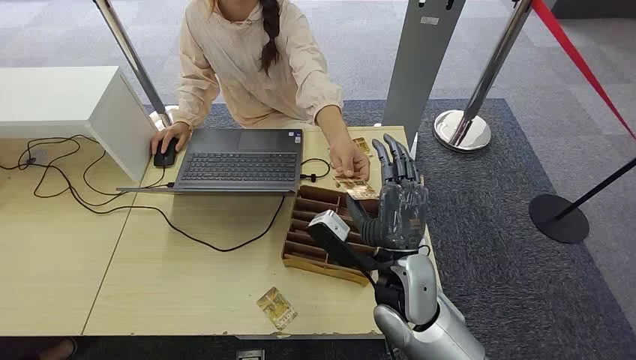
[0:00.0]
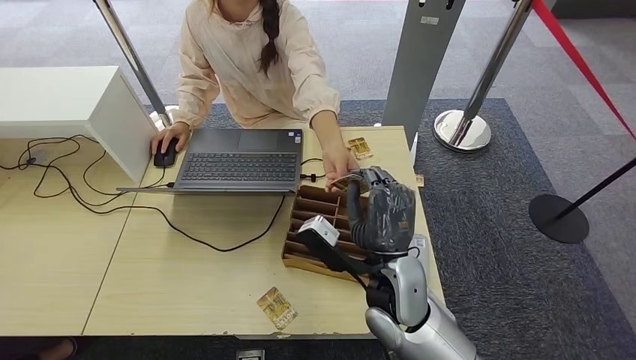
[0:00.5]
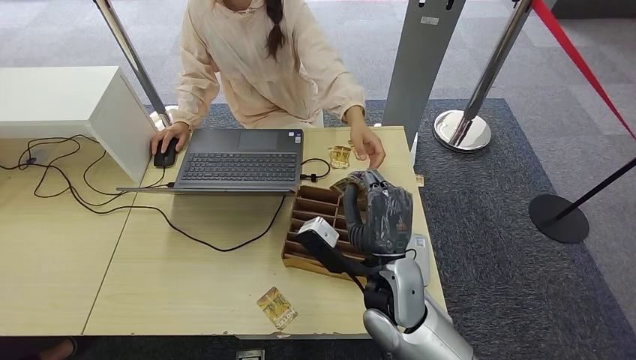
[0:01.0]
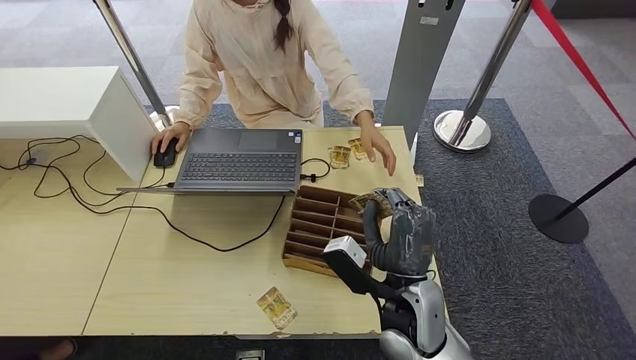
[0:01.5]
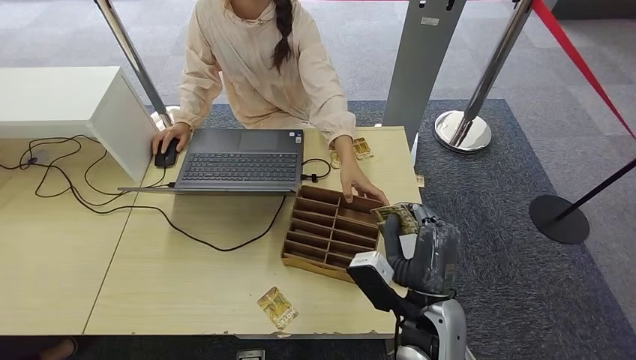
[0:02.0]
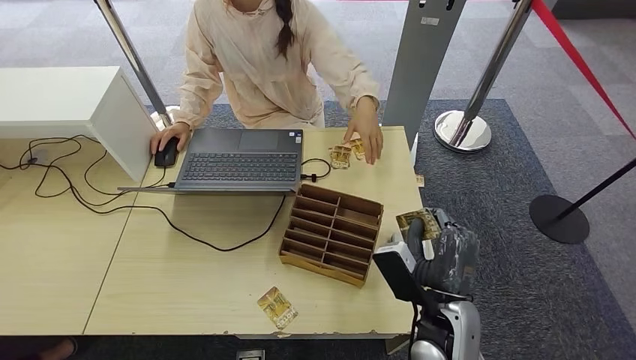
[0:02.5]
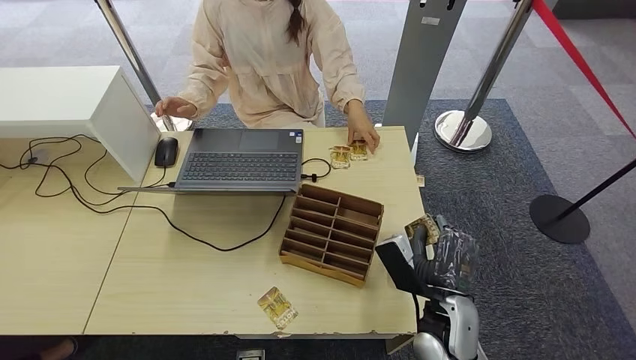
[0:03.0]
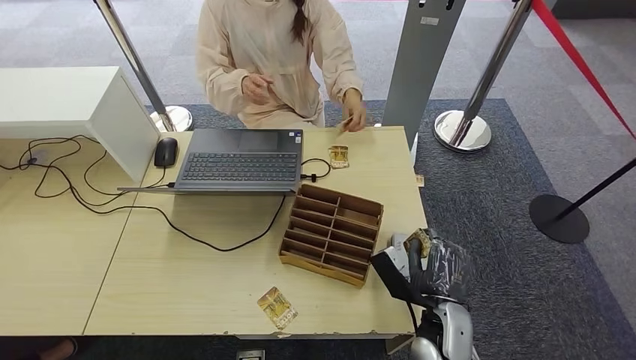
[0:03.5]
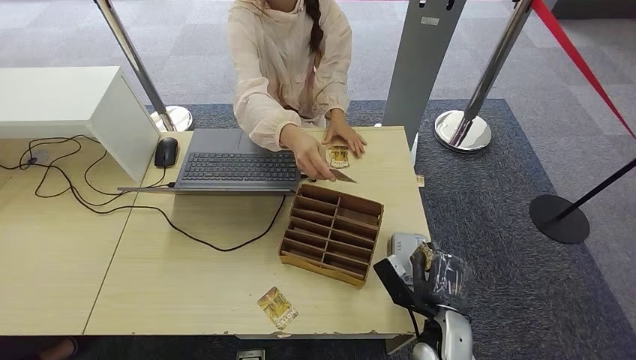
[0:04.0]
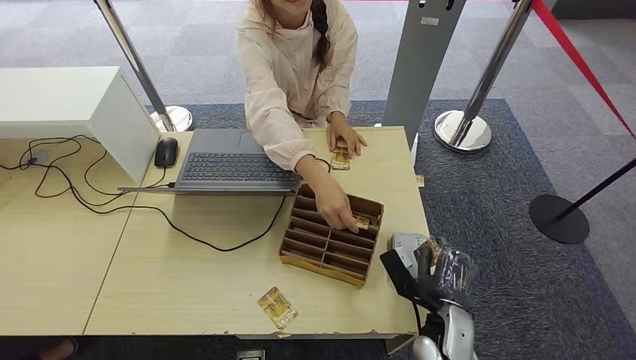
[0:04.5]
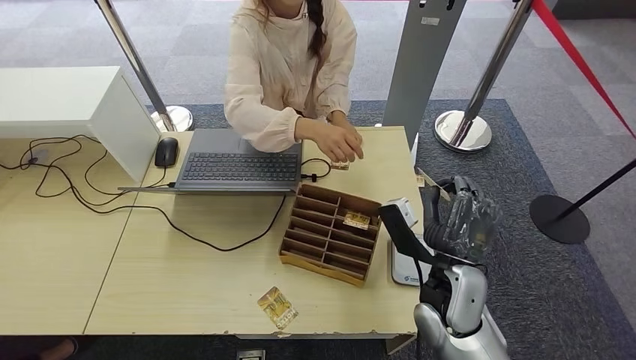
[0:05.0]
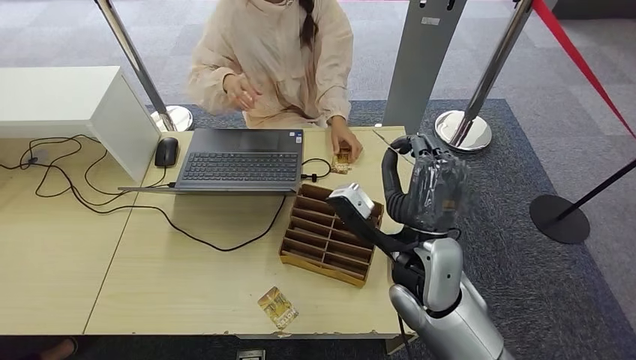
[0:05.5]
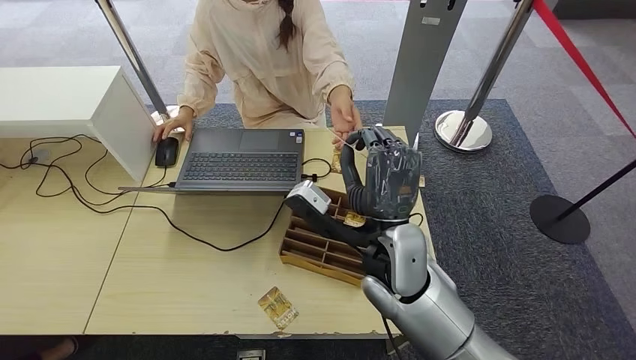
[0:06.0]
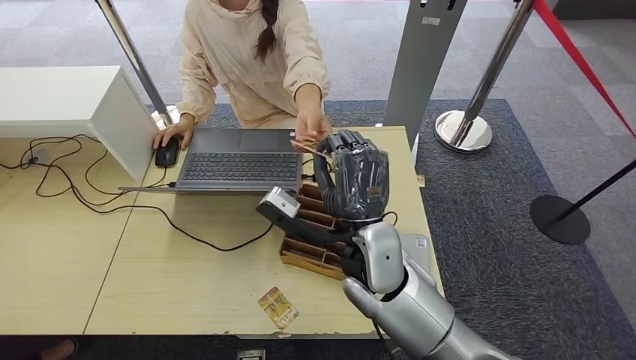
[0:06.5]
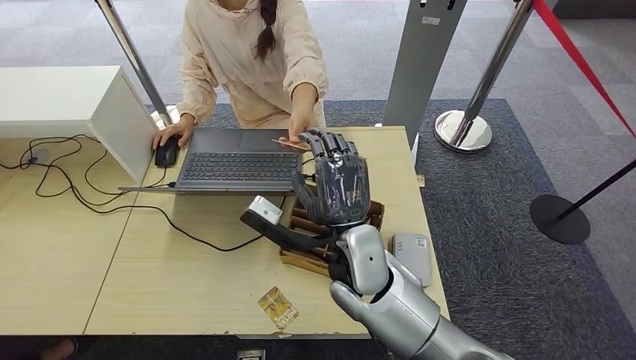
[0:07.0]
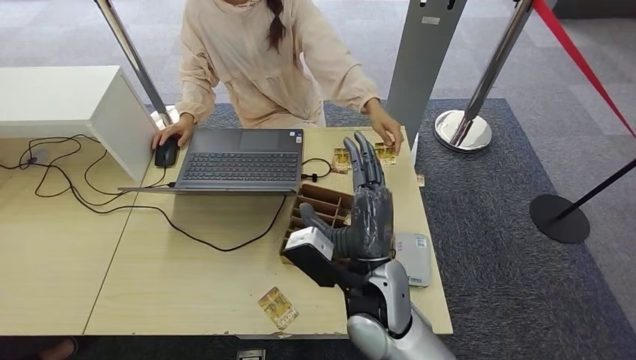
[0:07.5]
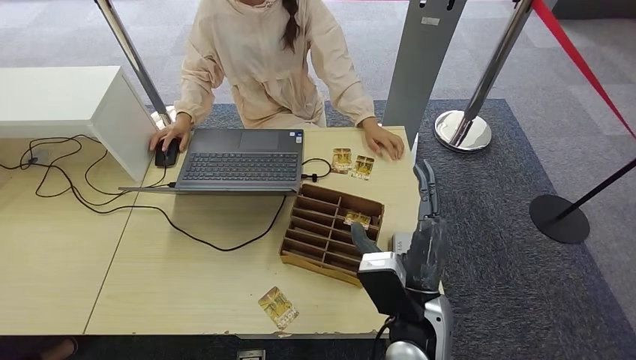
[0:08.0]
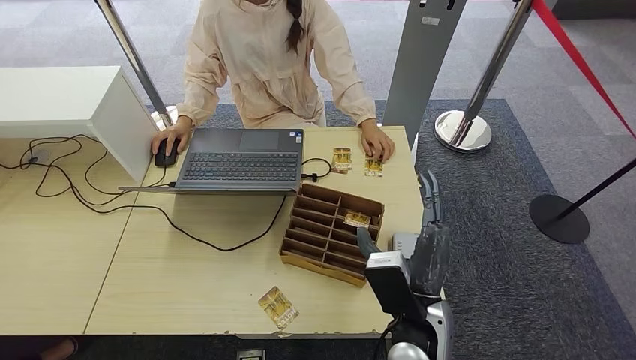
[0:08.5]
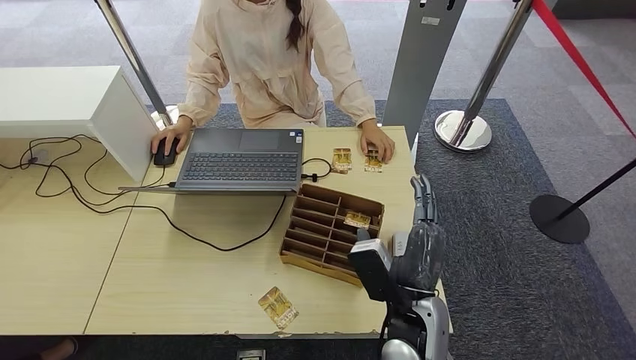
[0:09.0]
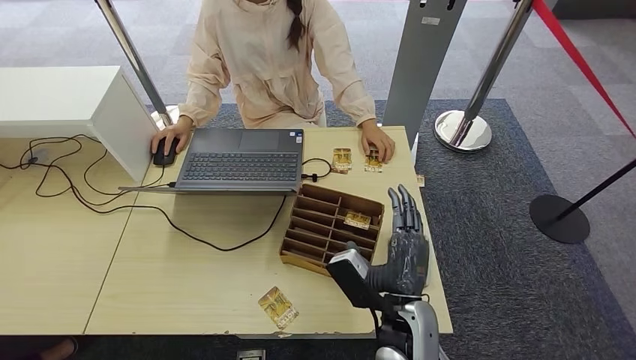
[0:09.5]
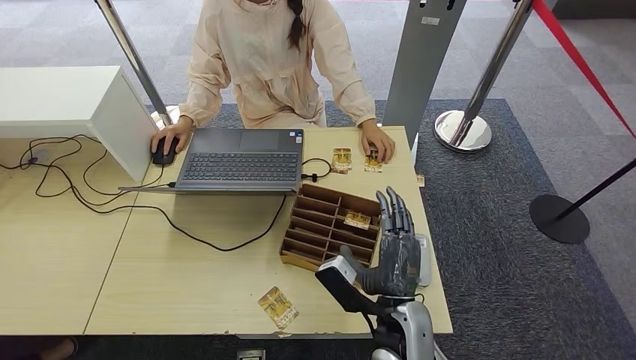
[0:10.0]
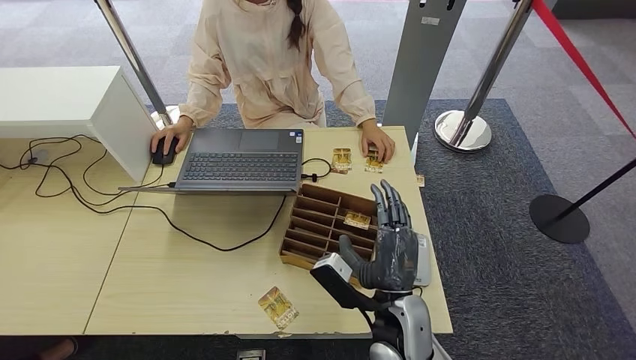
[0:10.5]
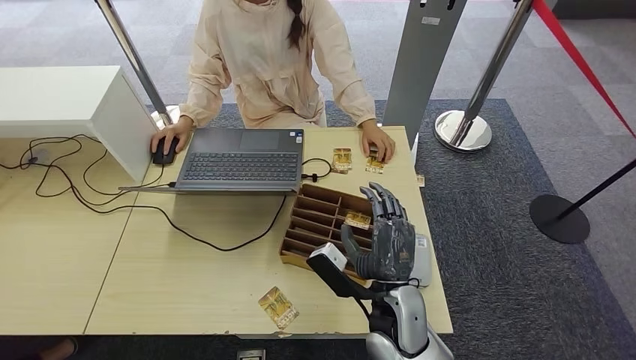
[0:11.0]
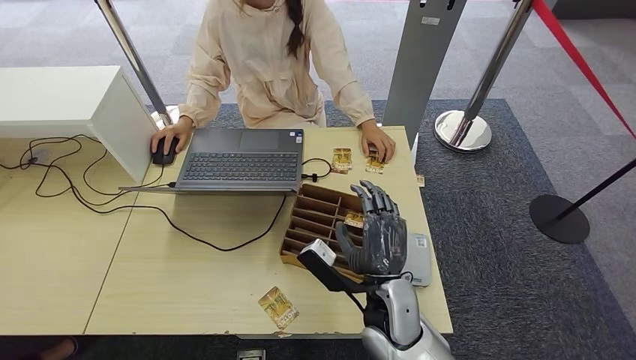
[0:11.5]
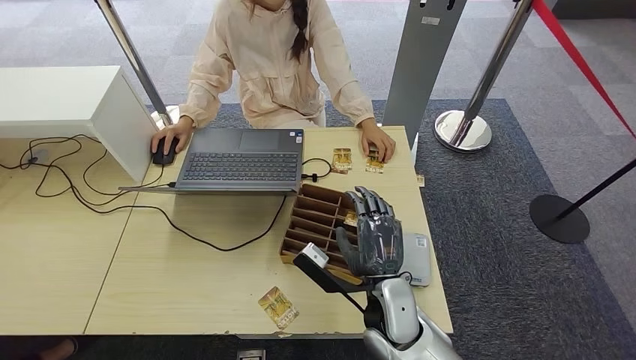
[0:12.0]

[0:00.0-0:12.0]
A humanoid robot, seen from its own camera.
Step, 0:00.0 to 0:02.0: Take the ID card from the person's hand.
Step, 0:02.5 to 0:04.0: Place the ID card on the card reader.
Step, 0:04.5 to 0:07.5: Hand the ID card to the person.
0:02.0 to 0:04.0: The right hand travels downward and to the right by approximately 15 cm.
0:04.0 to 0:06.0: The right hand is displaced upward, to the left and forward by some 25 cm.
0:06.0 to 0:08.0: The right hand goes approximately 10 cm backward and downward.
0:08.0 to 0:10.0: The right hand moves downward, some 5 cm.
0:10.0 to 0:12.0: There are only small adjustments of the hands.

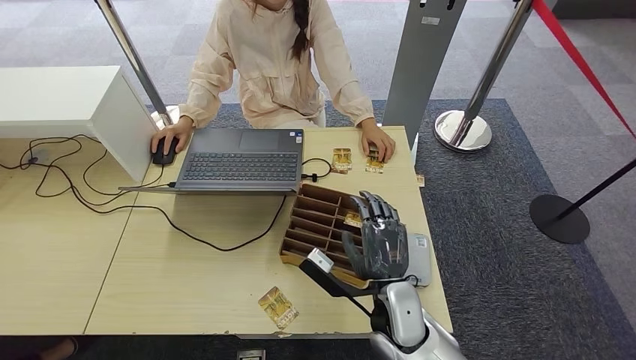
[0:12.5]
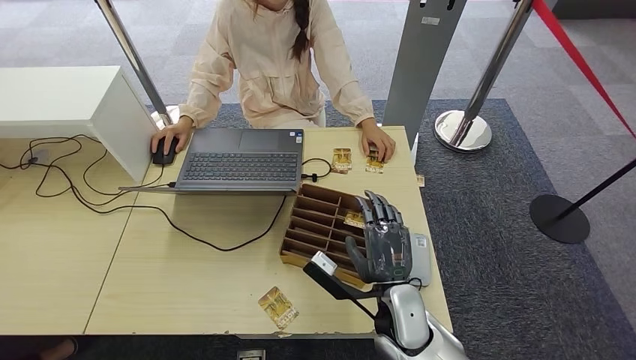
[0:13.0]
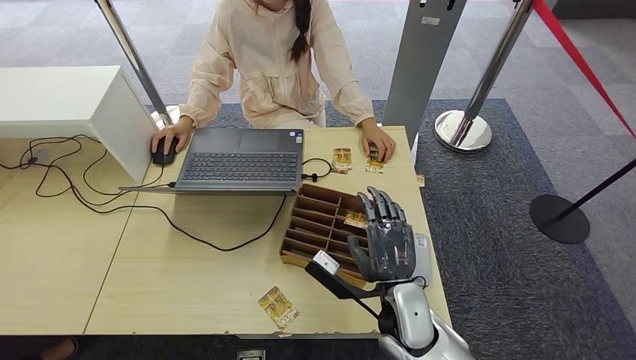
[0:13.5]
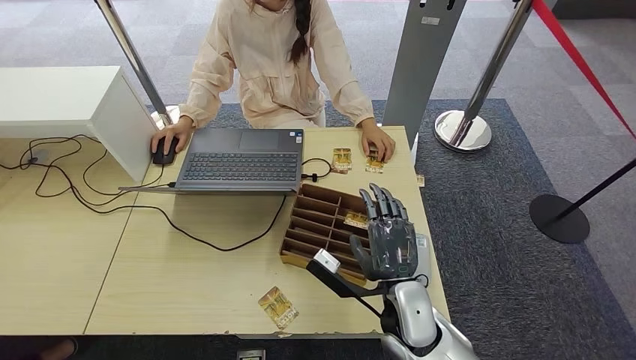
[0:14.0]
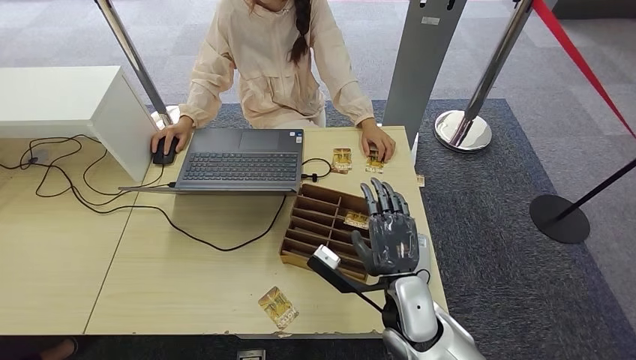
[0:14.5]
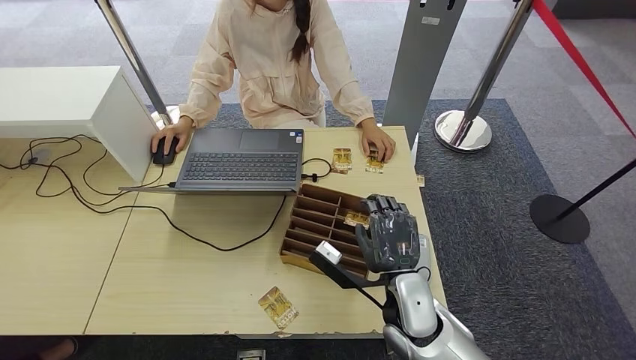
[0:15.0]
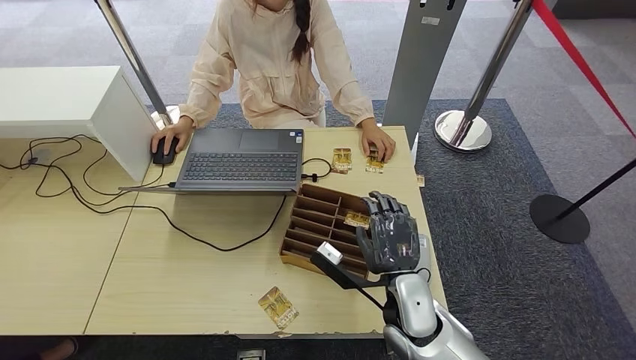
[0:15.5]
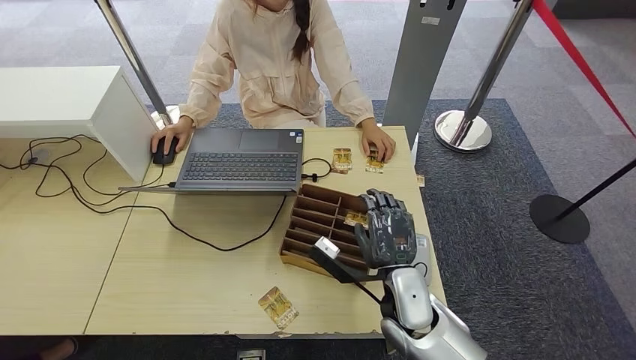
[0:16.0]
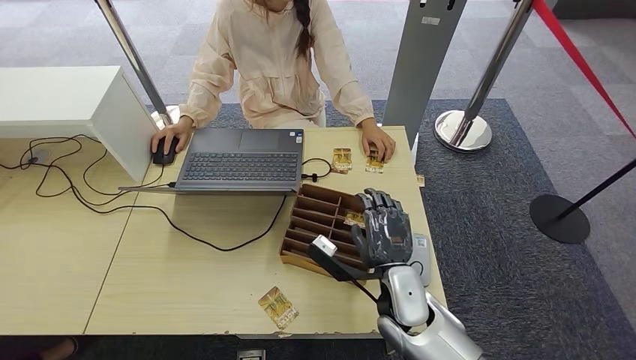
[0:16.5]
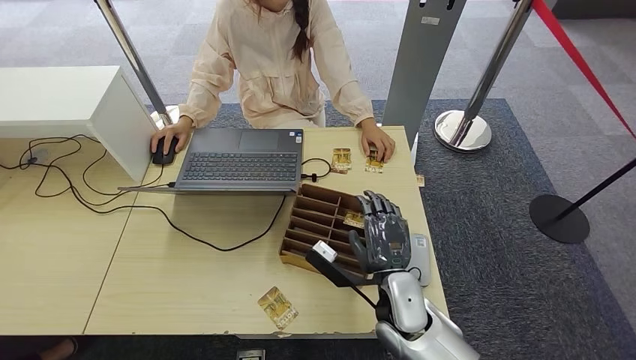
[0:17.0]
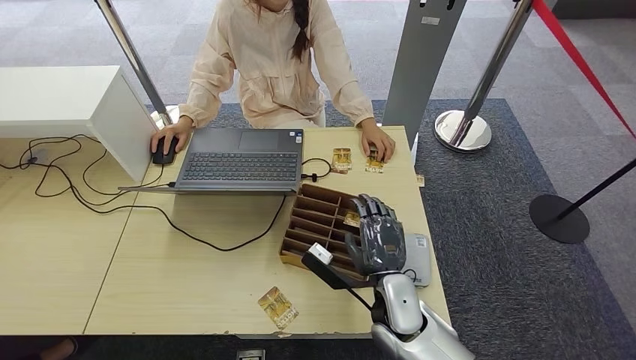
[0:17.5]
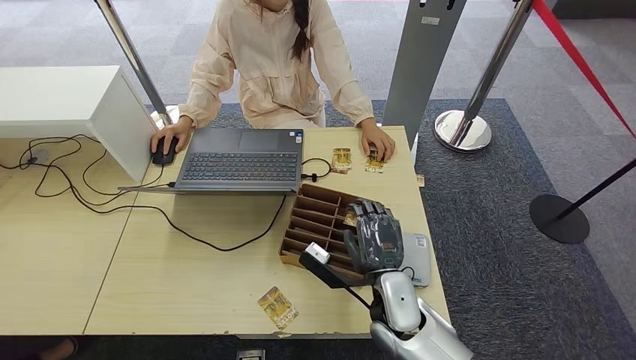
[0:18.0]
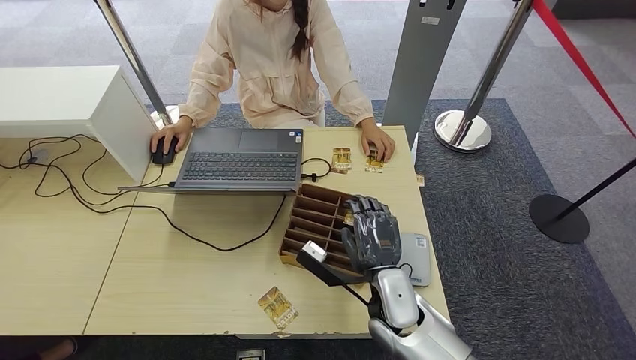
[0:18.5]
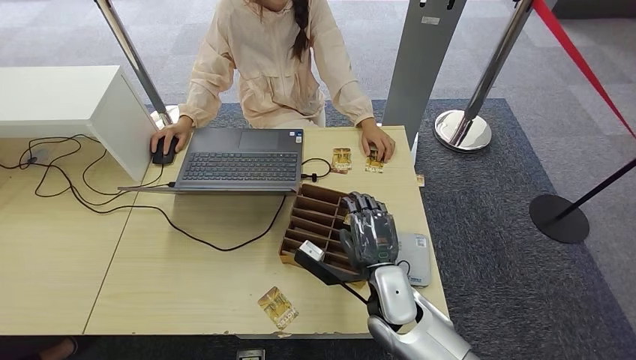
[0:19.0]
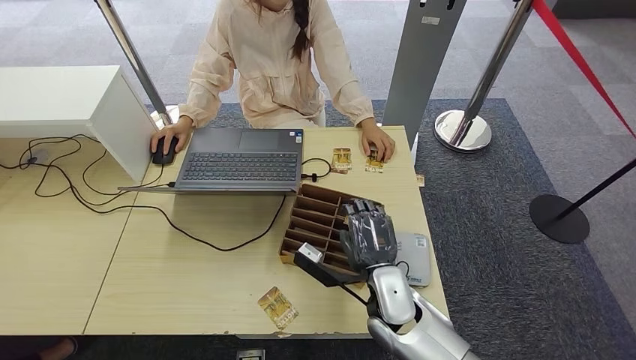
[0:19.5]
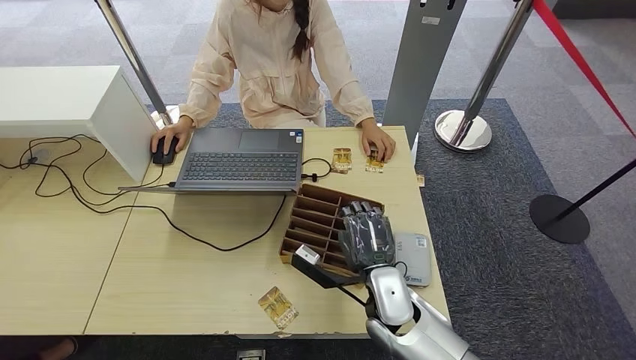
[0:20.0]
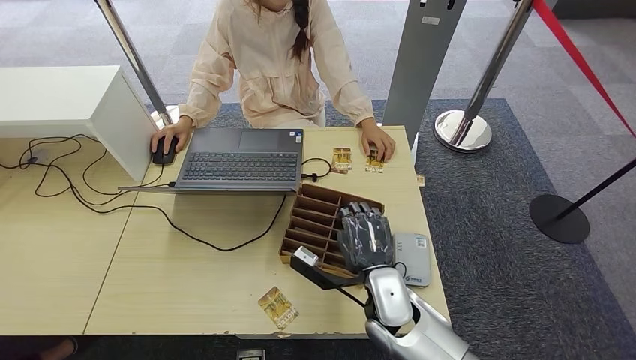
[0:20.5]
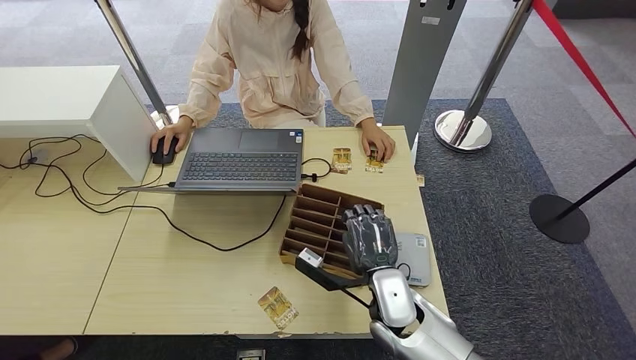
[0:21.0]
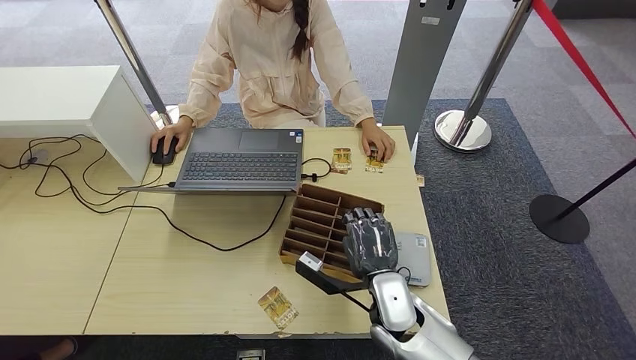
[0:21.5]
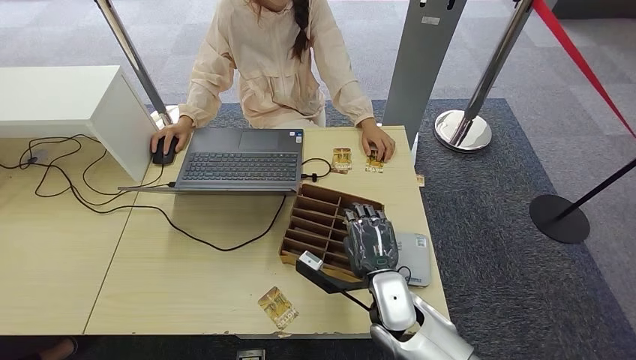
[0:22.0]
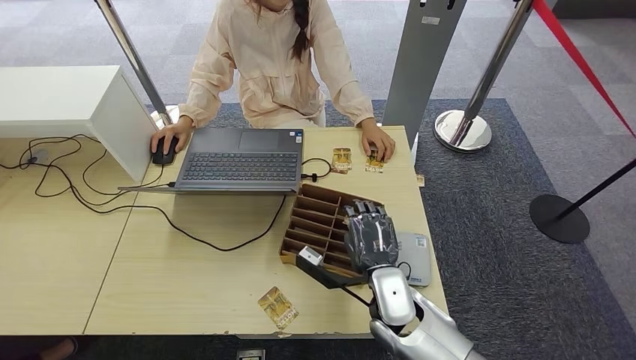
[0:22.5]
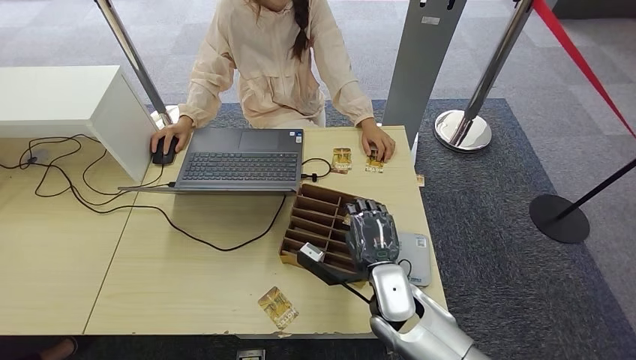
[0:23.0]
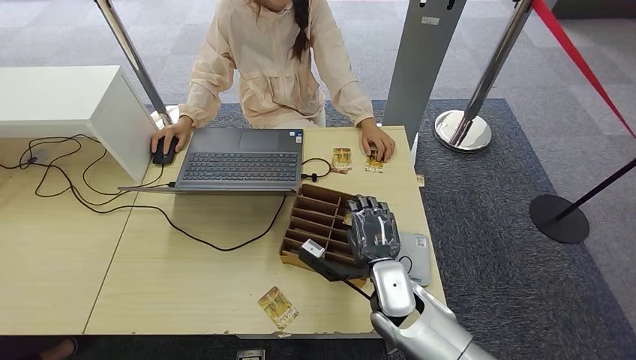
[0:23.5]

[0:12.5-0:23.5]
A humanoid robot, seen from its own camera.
0:12.5 to 0:21.5: The hands stay close to where they were, moving slightly.
0:21.5 to 0:23.5: The hands make only small movements.
